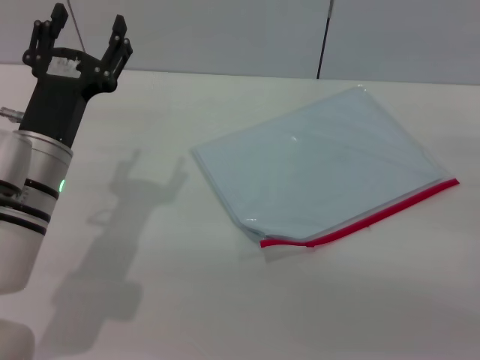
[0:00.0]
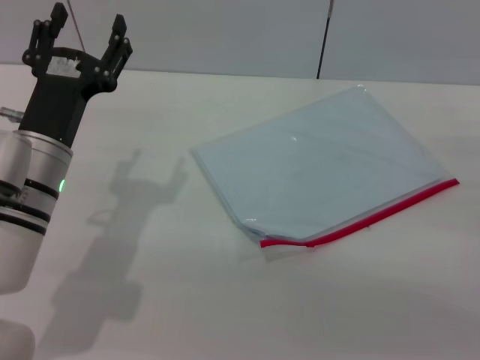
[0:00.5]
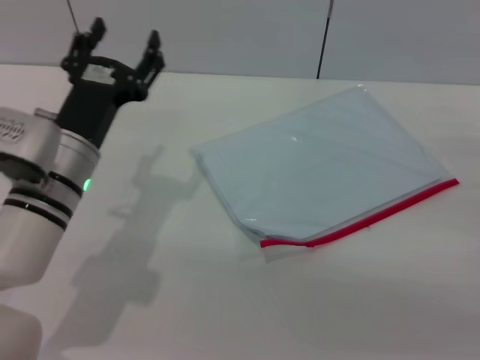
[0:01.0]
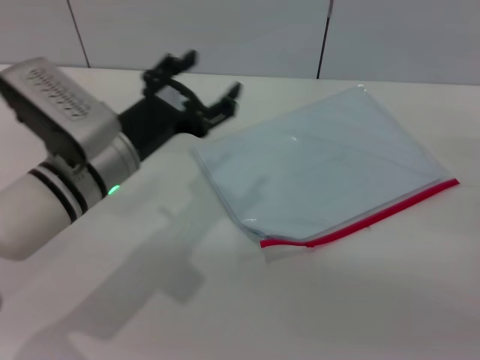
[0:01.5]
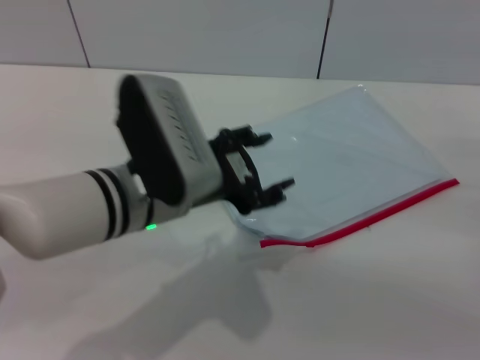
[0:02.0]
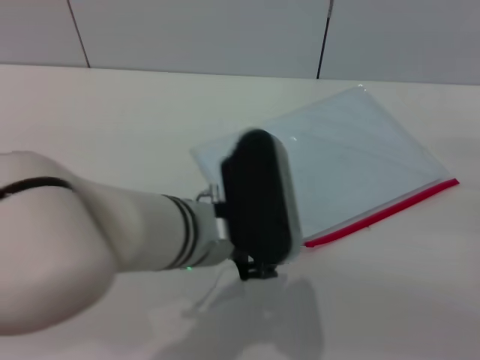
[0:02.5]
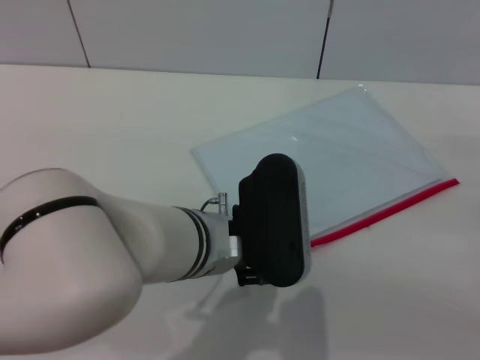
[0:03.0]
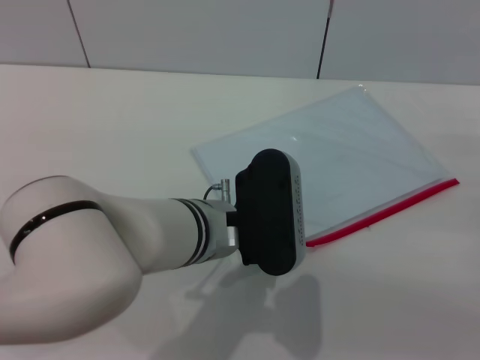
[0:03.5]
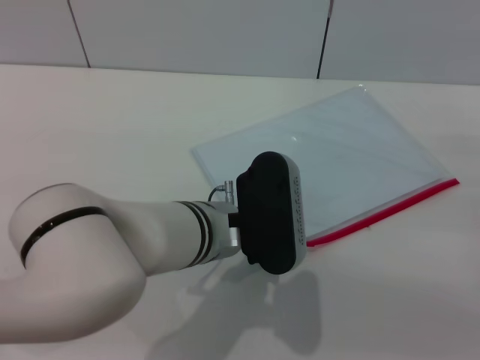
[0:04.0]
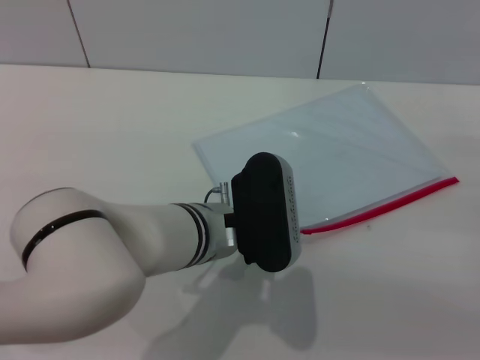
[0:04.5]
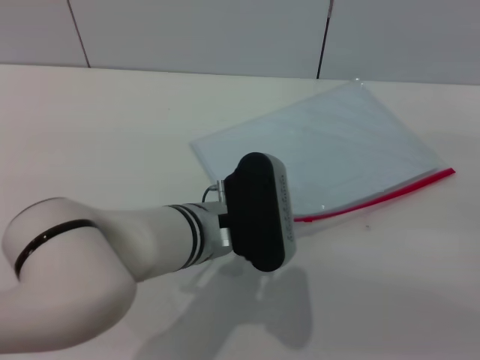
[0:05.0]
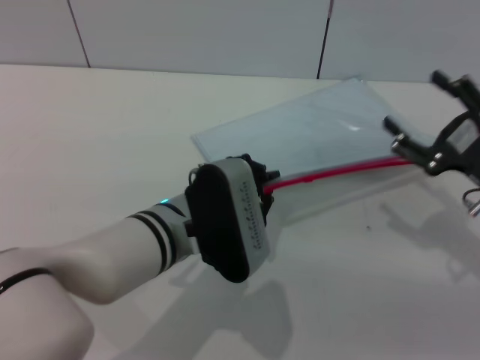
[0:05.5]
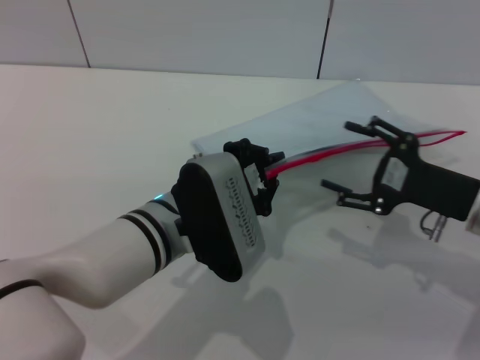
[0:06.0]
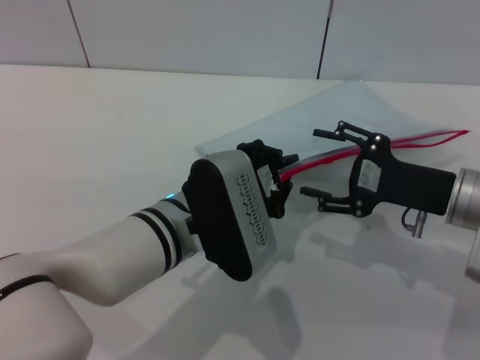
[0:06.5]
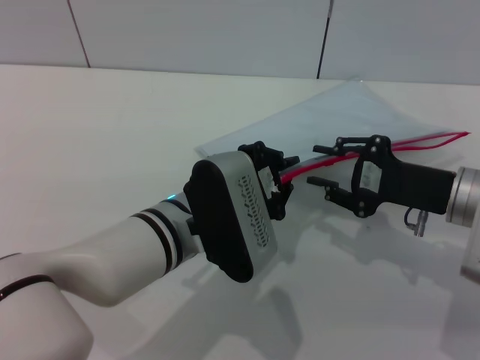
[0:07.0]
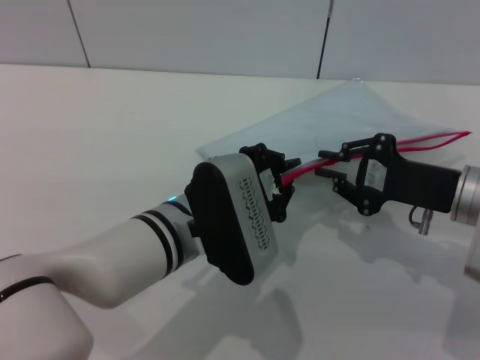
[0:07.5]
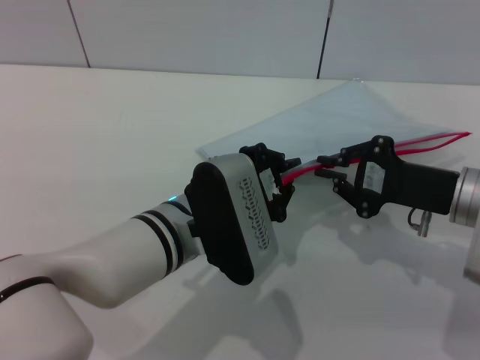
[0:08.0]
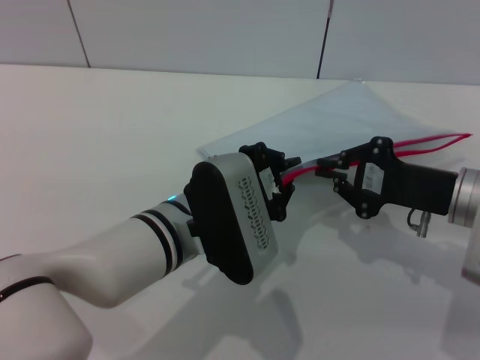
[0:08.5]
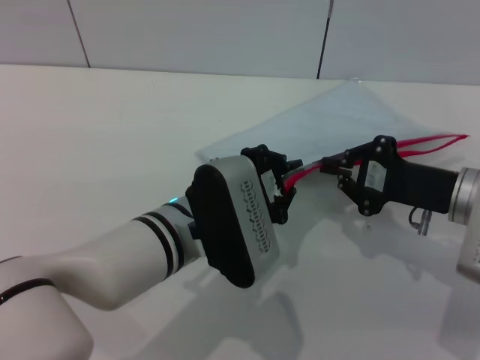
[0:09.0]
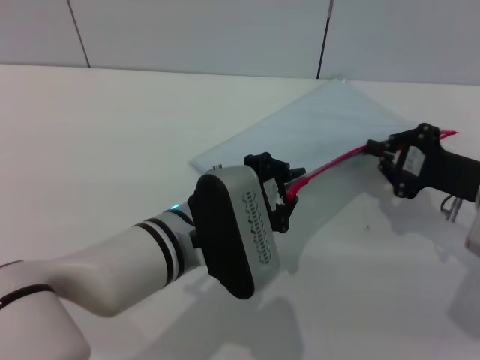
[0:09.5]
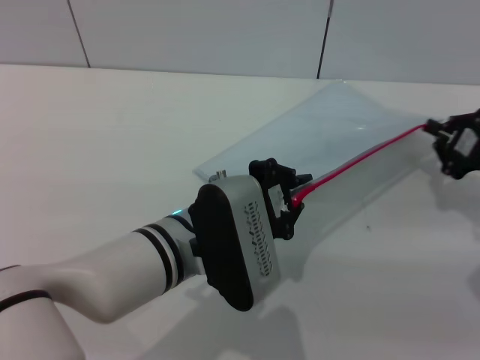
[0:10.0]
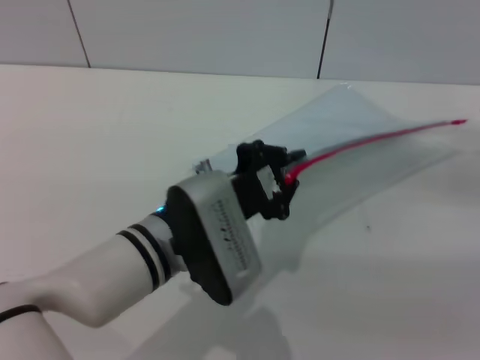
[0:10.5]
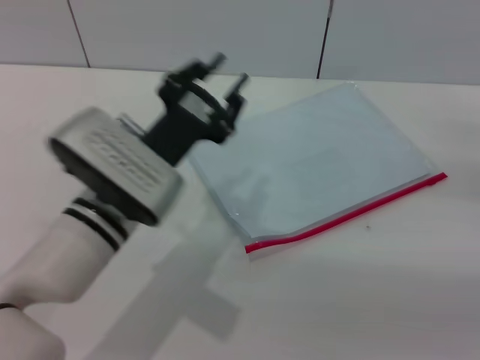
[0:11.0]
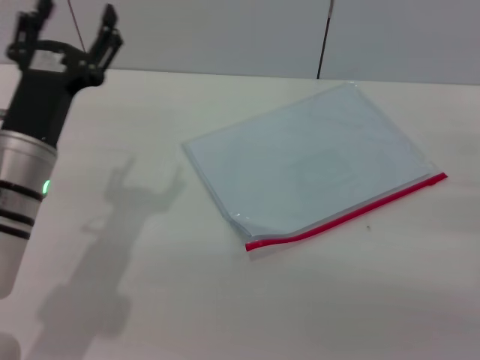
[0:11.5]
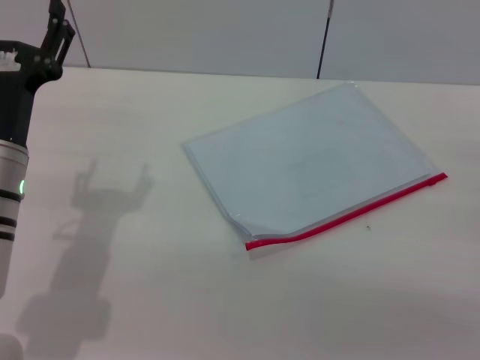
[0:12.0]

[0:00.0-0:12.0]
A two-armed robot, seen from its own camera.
Step, 0:00.0 to 0:05.5: Pick up the transparent plastic bag with the left gripper.
Step, 0:06.0 to 0:10.0: Pulling up the zipper on the transparent plastic bag with the right gripper to close it.
0:00.0 to 0:02.0: The left gripper shifts some 10 cm to the right.
0:02.0 to 0:04.0: The left gripper is displaced to the right by roughly 5 cm.
0:04.0 to 0:06.0: The left gripper closes its fingers; the right gripper shifts approximately 10 cm to the left.
0:06.0 to 0:08.0: The right gripper closes.
0:08.0 to 0:10.0: The right gripper shifts roughly 10 cm to the right.
0:10.0 to 0:12.0: The left gripper travels to the left by roughly 15 cm, and opens. Meanwhile the right gripper goes some 10 cm backward, and opens.

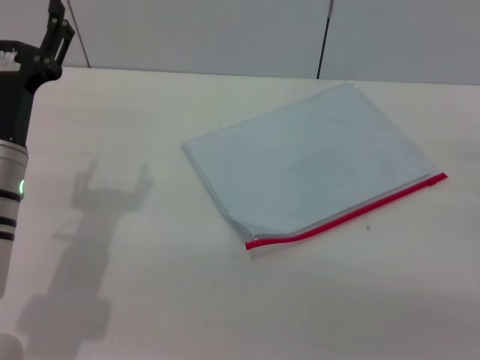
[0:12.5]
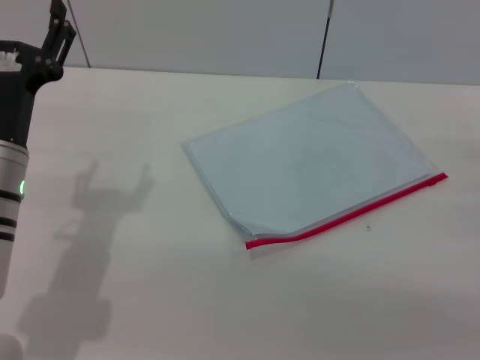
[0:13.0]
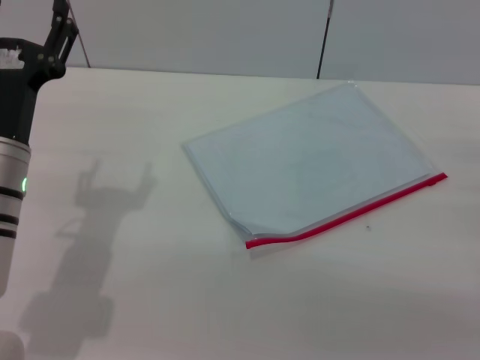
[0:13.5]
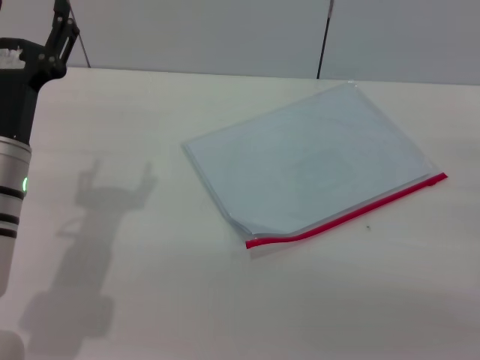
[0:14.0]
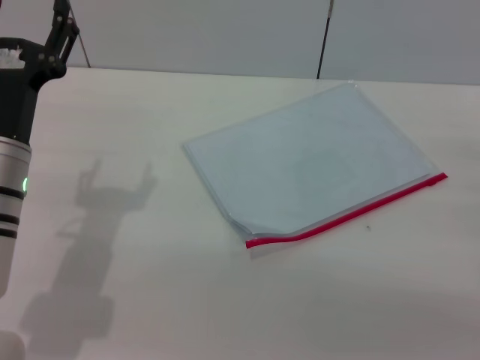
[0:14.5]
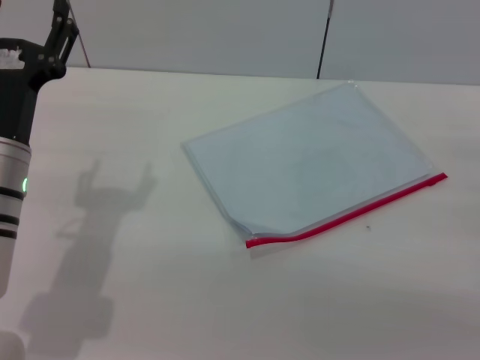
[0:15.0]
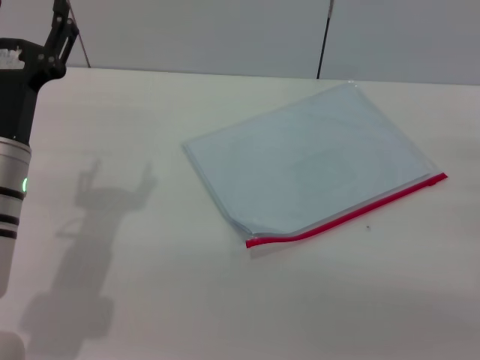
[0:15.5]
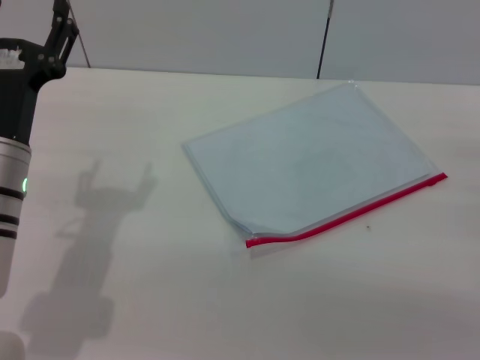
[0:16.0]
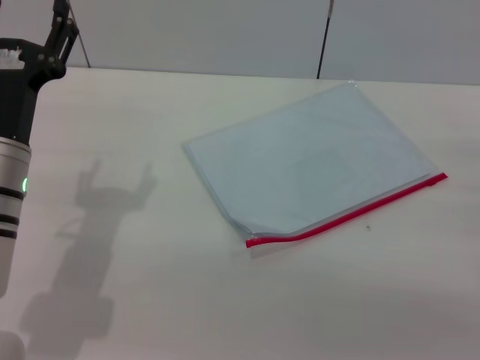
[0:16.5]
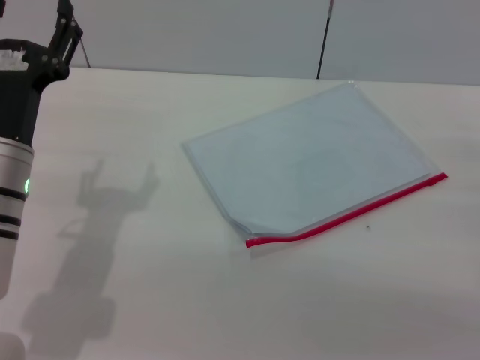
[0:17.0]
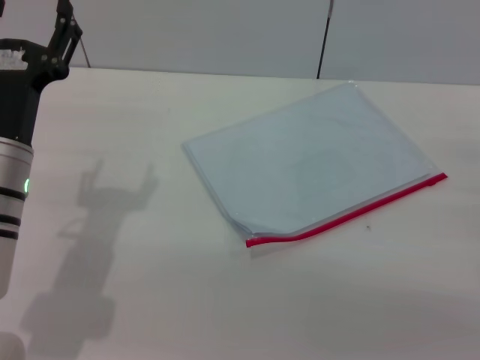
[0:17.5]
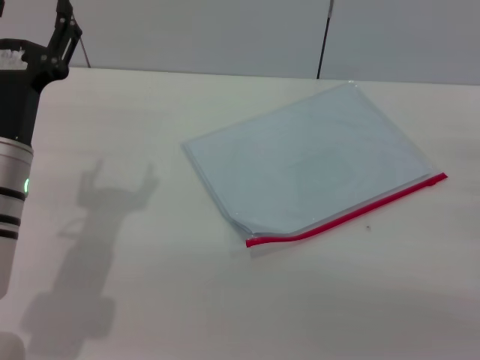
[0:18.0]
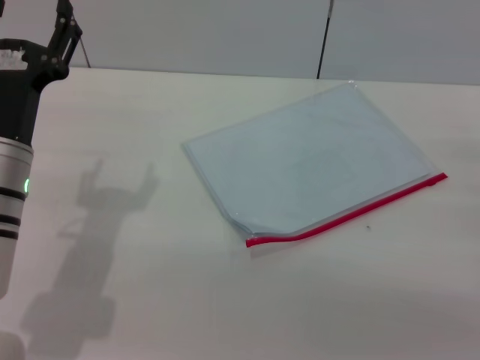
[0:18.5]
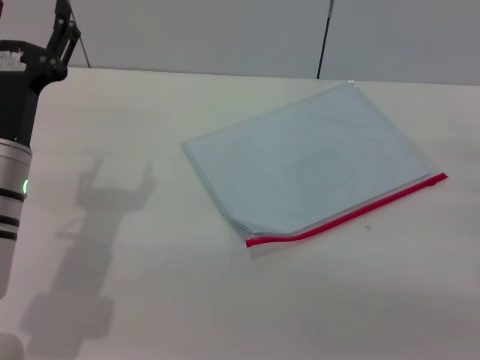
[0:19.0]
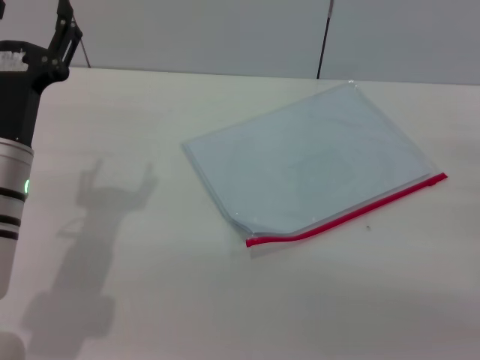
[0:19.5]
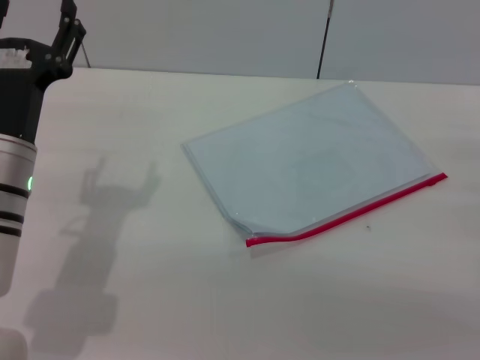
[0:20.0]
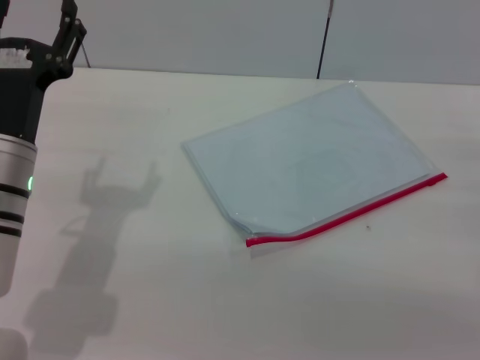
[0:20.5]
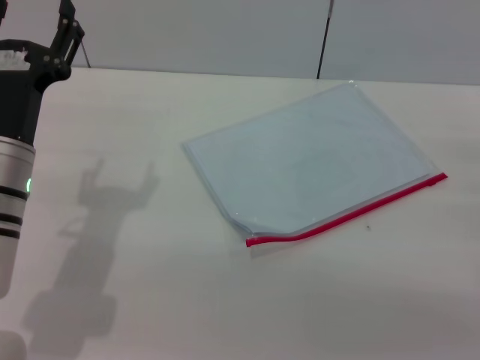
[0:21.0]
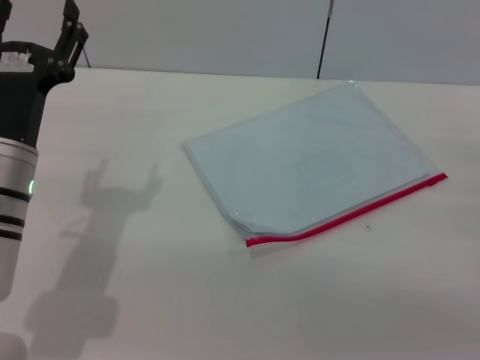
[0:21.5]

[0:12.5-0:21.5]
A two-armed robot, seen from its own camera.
0:12.5 to 0:21.5: Neither gripper changes place.
